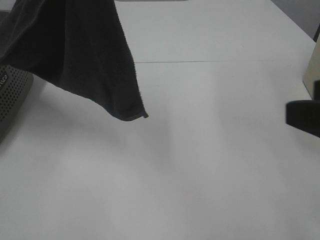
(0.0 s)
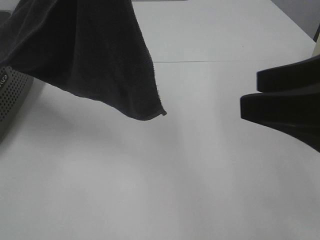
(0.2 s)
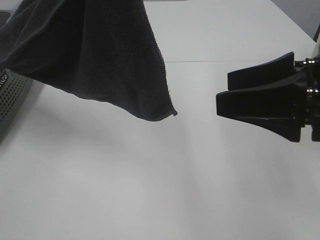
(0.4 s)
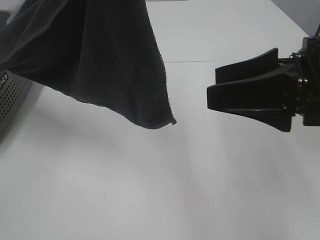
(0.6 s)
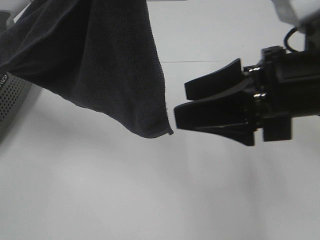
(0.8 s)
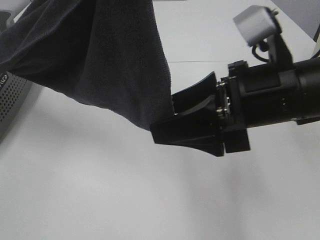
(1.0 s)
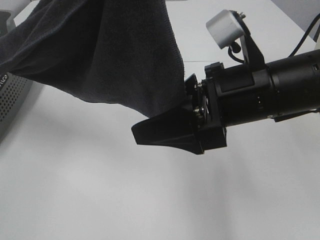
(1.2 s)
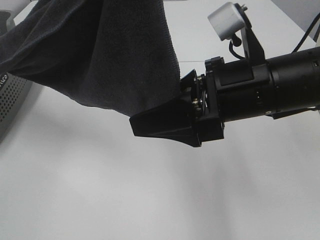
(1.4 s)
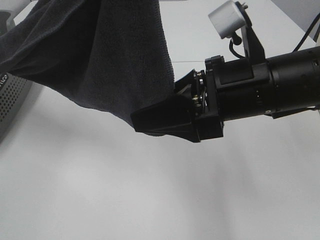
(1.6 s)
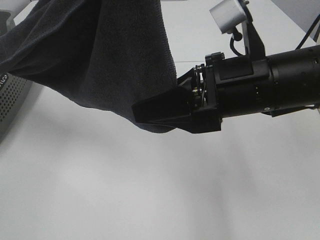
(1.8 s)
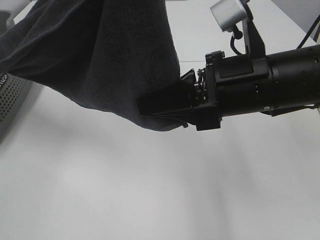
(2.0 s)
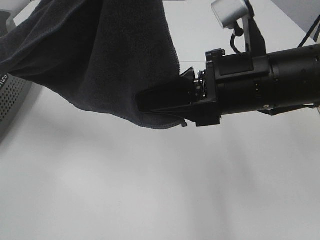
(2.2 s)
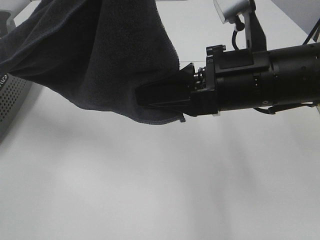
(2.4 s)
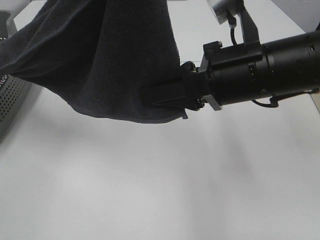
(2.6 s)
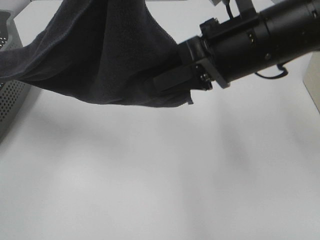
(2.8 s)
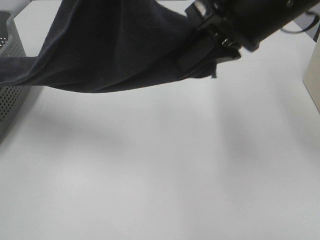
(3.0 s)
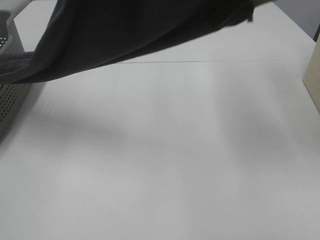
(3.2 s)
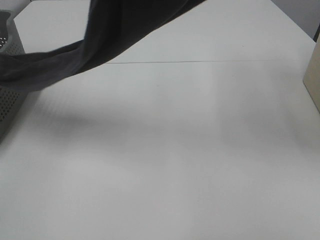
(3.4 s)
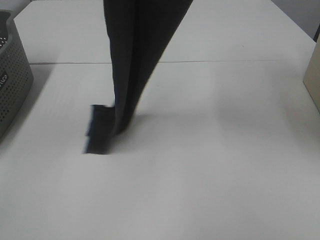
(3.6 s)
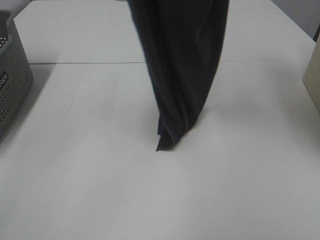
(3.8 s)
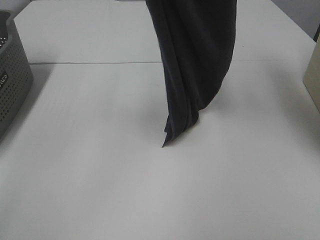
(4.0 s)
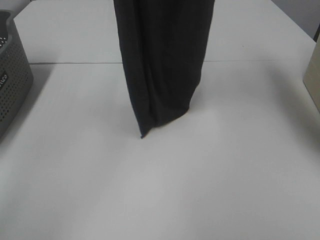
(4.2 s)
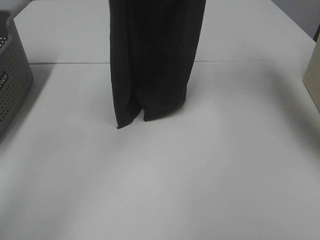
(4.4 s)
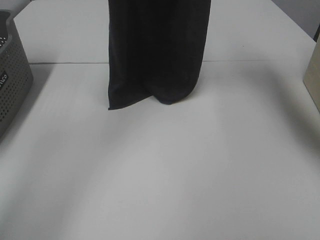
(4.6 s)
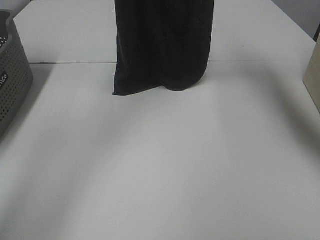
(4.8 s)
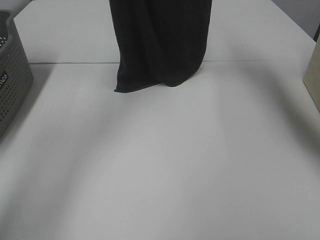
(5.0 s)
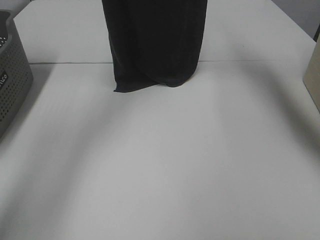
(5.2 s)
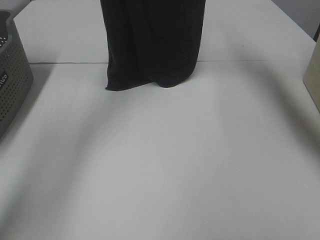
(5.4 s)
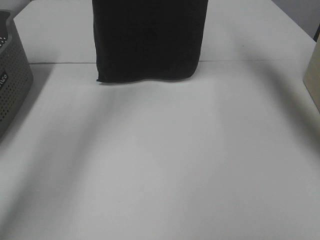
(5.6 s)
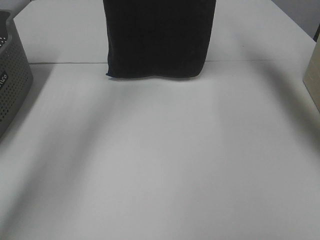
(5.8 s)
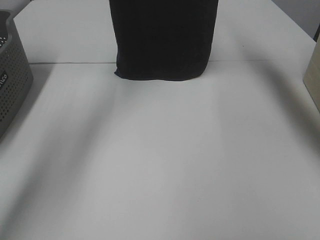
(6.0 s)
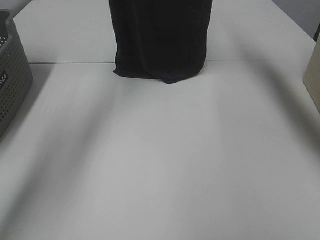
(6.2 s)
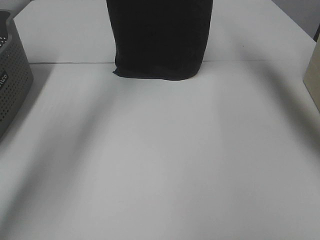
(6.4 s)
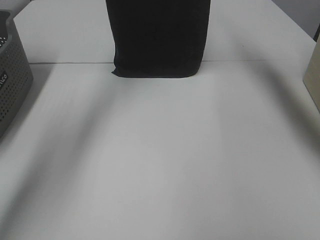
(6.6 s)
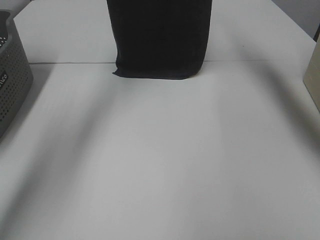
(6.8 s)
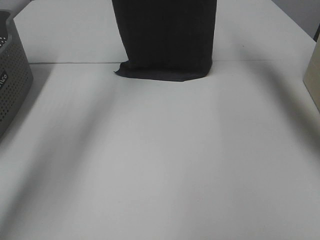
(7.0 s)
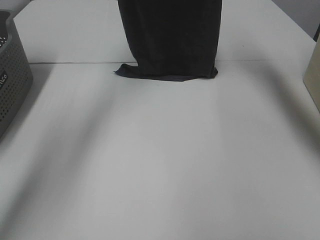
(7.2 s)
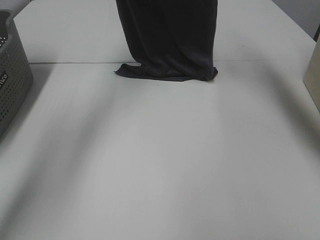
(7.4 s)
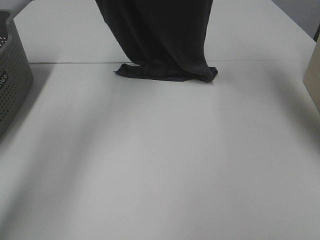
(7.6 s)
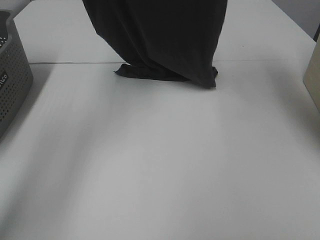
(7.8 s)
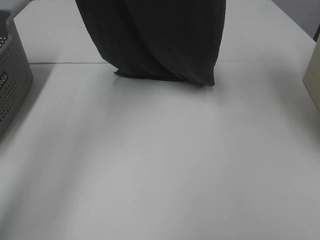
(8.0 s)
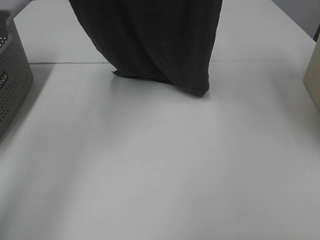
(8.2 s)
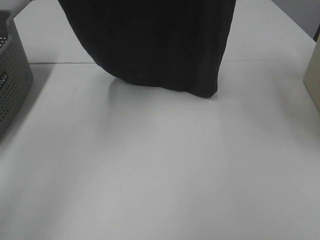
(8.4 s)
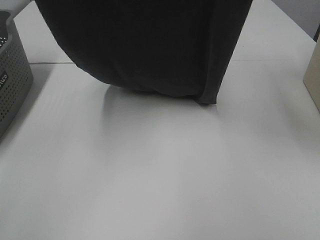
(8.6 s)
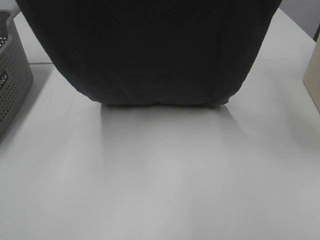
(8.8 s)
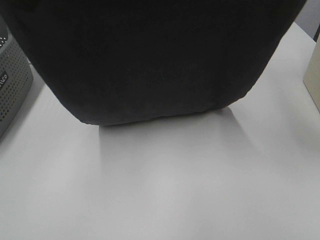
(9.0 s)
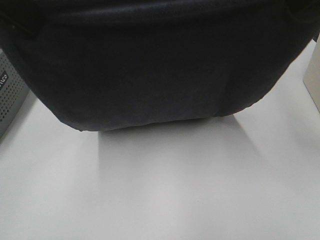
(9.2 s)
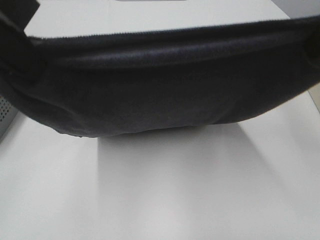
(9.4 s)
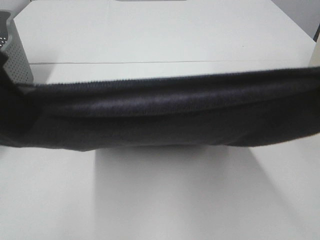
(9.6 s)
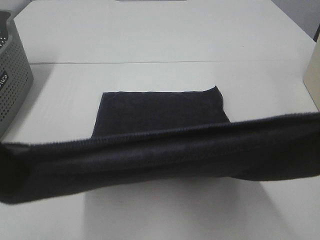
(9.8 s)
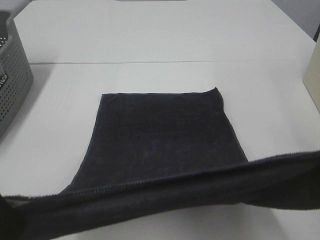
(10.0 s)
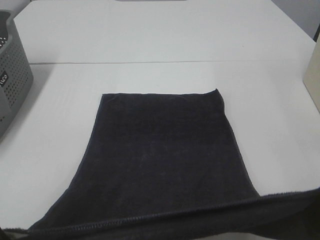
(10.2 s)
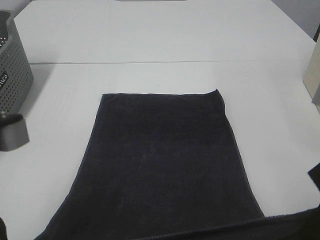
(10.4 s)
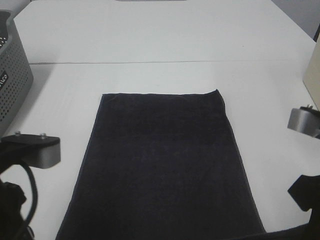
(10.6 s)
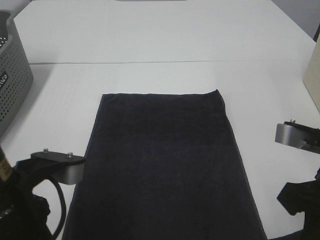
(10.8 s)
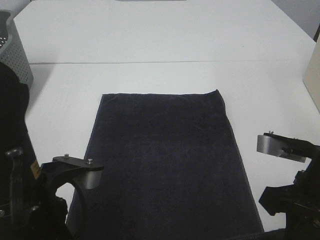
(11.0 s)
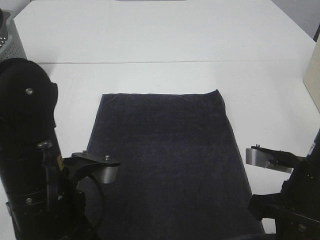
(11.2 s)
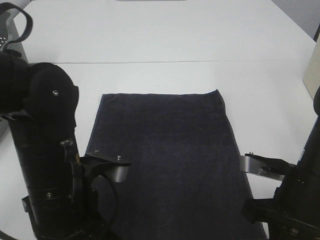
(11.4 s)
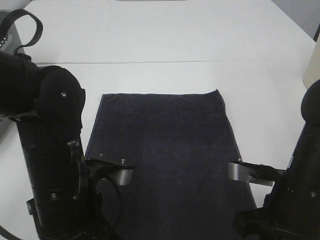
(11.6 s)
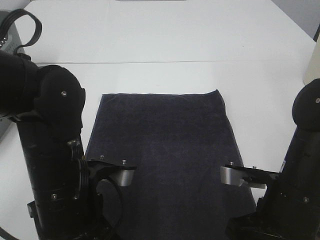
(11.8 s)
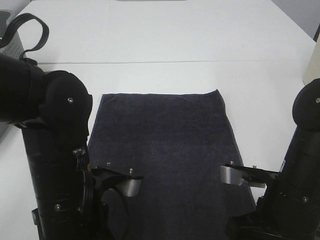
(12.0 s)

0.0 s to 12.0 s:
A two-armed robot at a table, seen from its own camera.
Task of the whole recording: Remove the towel and place it.
Step, 0.0 to 2.4 s: Right hand: grab a corner of the grey towel and straighten it.
Step, 2.6 to 8.2 s: Left hand: spread the grey towel flat on the table.
Step, 2.6 to 8.2 s: Right hand: spread the grey towel flat on the table.
0.0 to 1.6 s: The right gripper goes approximately 15 cm to the left, forward and downward.
1.6 to 3.0 s: The right gripper heads upward, covering some 10 cm, and closes its fingers.
3.0 to 4.4 s: The left gripper goes roughly 20 cm forward, while the right gripper heads upward and forward, covering about 25 cm.
4.4 to 6.0 s: Both grippers move forward, approximately 10 cm.
6.0 to 7.6 s: The left gripper ends up some 5 cm from where it was. Meanwhile the right gripper moves about 5 cm.
7.6 to 9.0 s: Both grippers travel together backward, roughly 20 cm.
9.0 to 10.4 s: The two grippers go about 20 cm downward and backward.
10.4 to 12.0 s: The right gripper travels downward by about 15 cm. The left gripper travels downward, to the right and forward by roughly 15 cm.

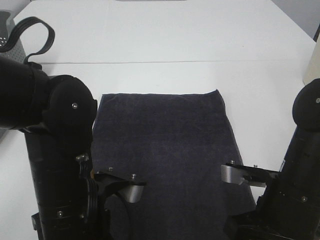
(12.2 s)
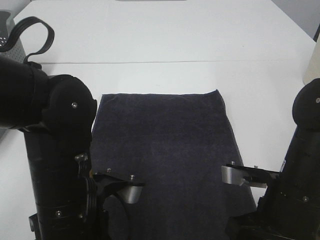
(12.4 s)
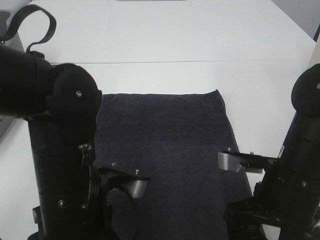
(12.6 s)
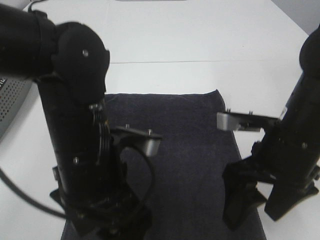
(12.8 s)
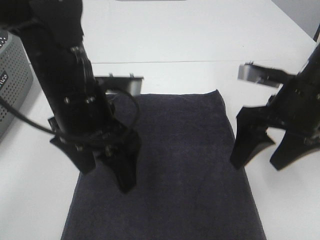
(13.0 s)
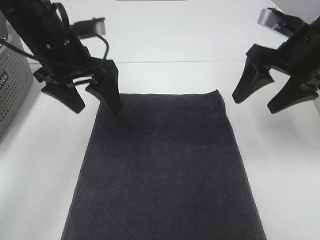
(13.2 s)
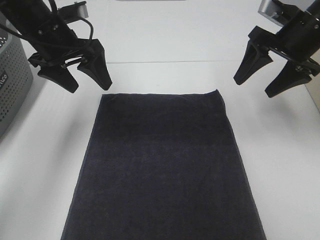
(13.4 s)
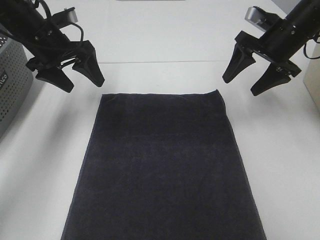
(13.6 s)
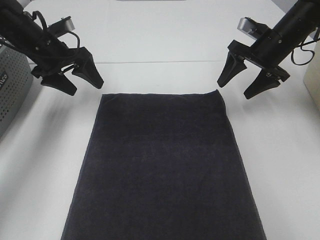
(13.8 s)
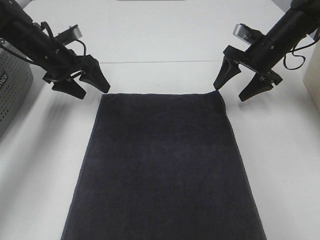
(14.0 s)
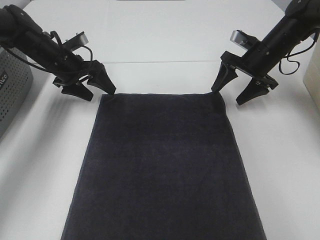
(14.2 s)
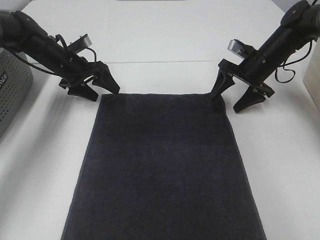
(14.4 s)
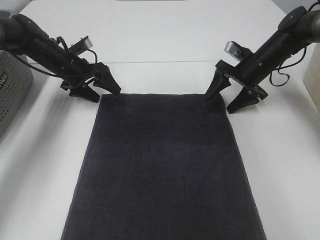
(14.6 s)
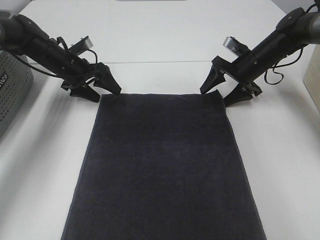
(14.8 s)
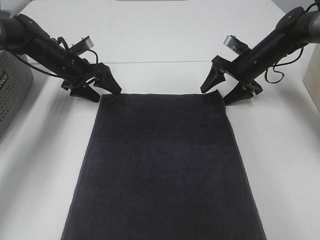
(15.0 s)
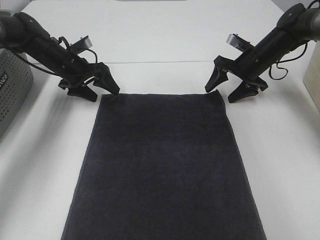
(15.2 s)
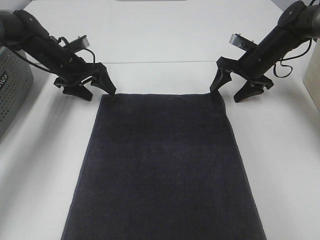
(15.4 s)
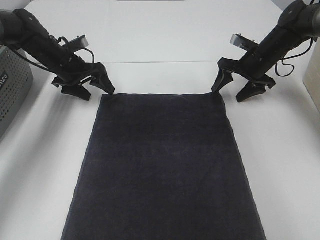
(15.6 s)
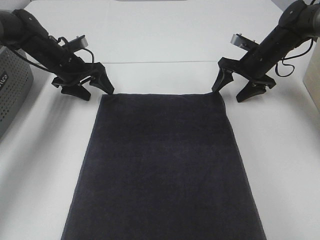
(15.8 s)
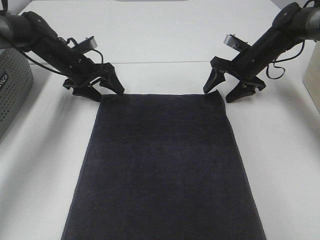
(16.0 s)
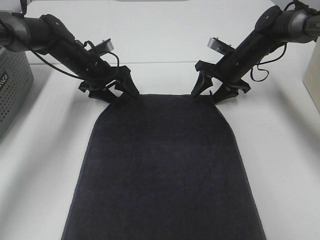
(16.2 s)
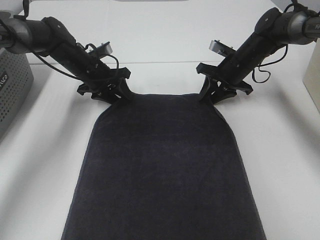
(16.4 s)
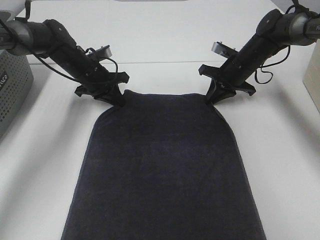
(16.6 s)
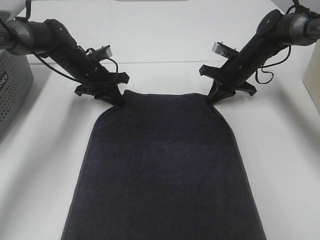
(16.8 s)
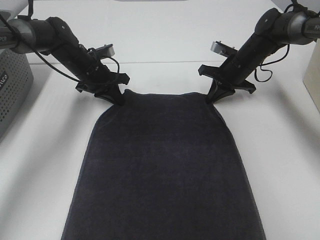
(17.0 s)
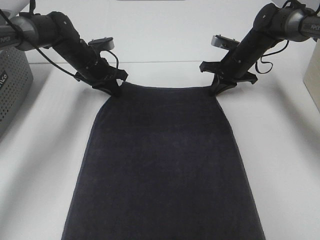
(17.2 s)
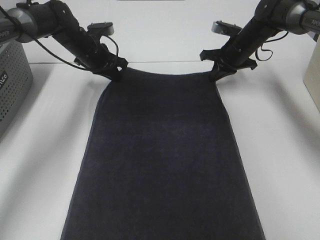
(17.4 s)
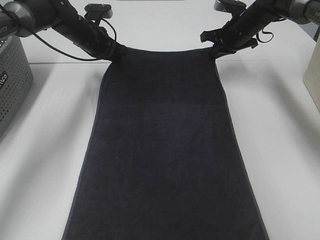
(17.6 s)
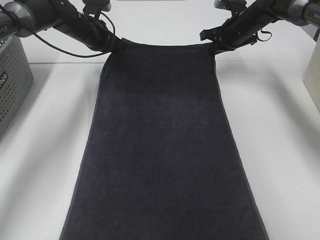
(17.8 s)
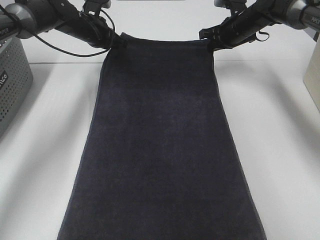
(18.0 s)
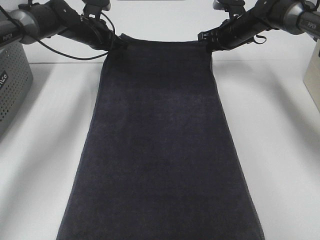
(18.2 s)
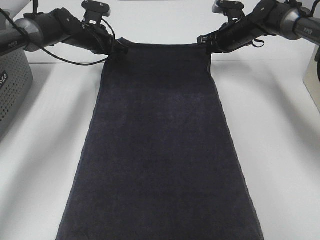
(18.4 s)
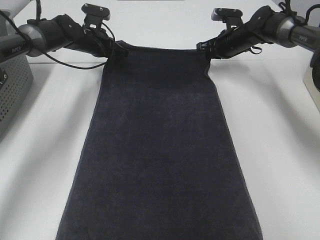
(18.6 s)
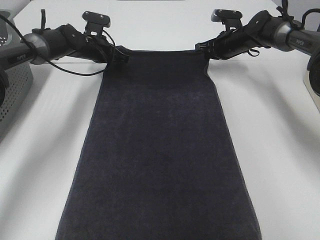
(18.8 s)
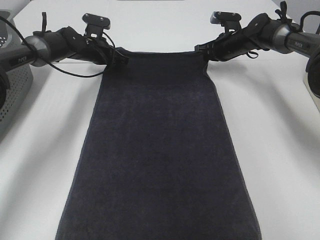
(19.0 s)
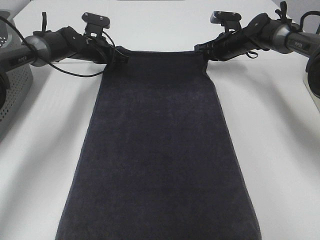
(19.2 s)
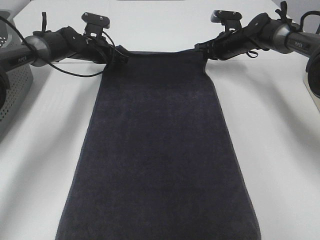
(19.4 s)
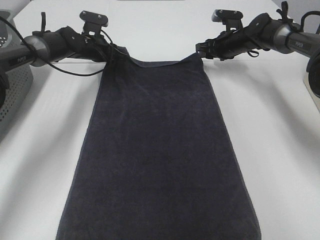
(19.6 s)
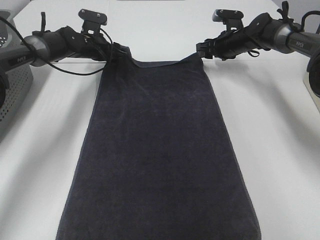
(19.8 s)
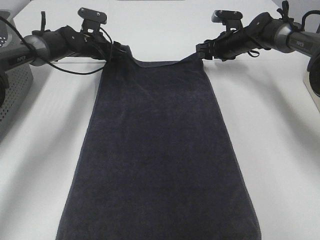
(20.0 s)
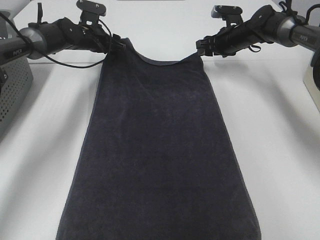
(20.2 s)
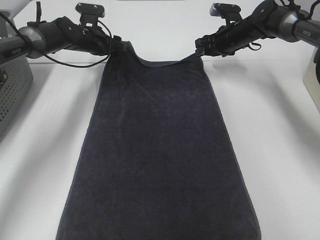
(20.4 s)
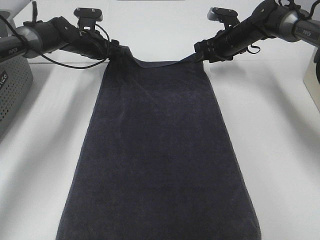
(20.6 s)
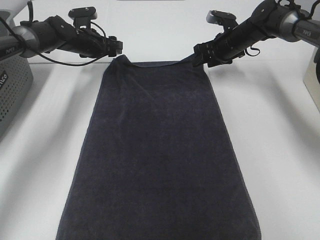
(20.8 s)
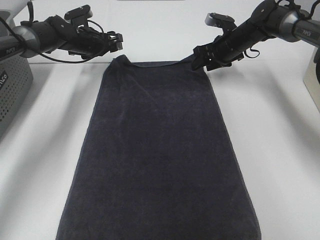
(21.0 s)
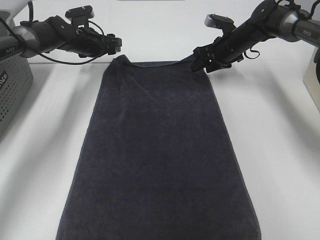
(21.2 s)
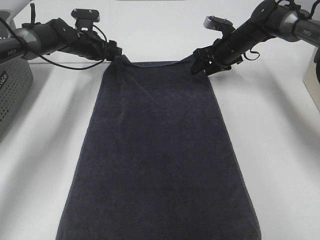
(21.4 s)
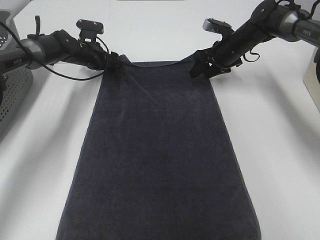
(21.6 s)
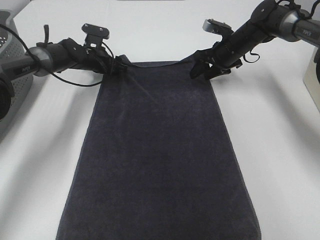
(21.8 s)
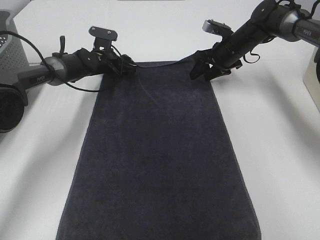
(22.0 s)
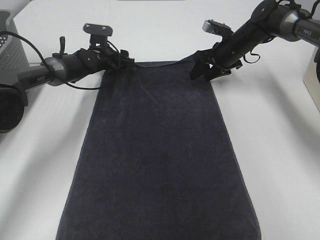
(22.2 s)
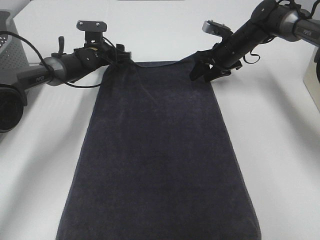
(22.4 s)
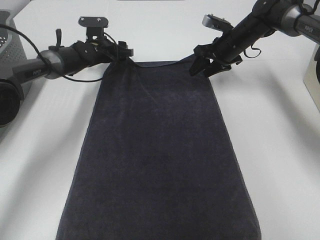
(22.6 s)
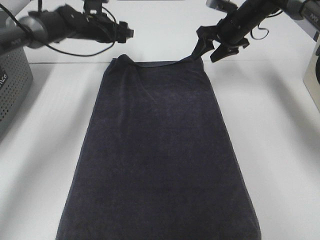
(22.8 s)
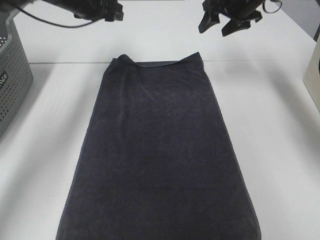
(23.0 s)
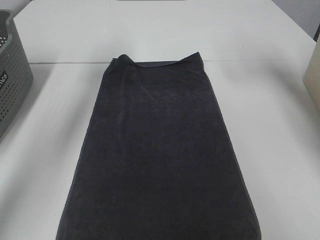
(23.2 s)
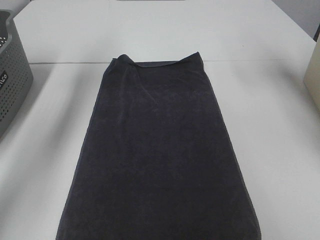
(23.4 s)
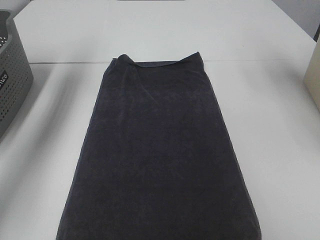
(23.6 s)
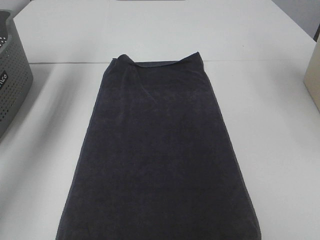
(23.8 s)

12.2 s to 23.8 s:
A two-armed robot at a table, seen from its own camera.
Task of the whole recording: Remove the towel and place it.
Step, 12.2 to 15.2 s: Left hand:adjust the gray towel.
12.2 to 13.6 s: The left gripper is displaced forward and to the left by roughly 30 cm. Meanwhile the right gripper goes approximately 25 cm forward.
13.6 to 15.0 s: The two grippers go about 15 cm downward and forward.
15.0 to 16.6 s: The left gripper ends up approximately 5 cm from where it was, and closes its fingers. The right gripper closes up.
16.6 to 18.0 s: The grippers both shift upward and forward by about 10 cm.
18.0 to 19.4 s: Both grippers move downward, about 5 cm.
19.4 to 21.0 s: The right gripper opens up. The left gripper opens up.
21.0 to 22.4 s: The left gripper heads downward, covering roughly 5 cm.
22.4 to 23.8 s: The left gripper travels upward and to the left by about 35 cm; the right gripper heads upward and backward, covering about 35 cm.
